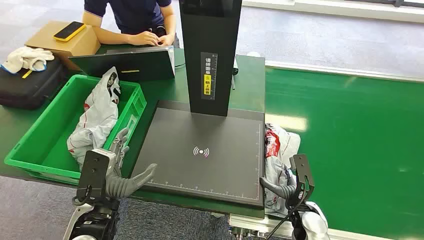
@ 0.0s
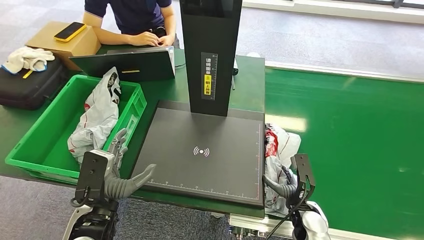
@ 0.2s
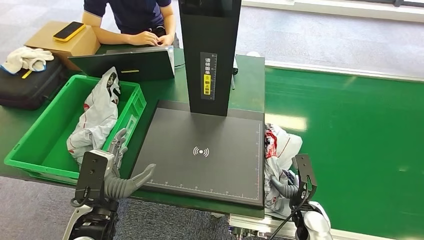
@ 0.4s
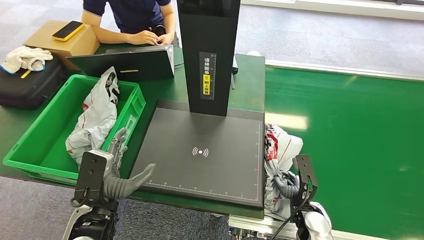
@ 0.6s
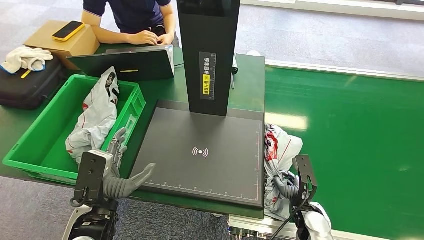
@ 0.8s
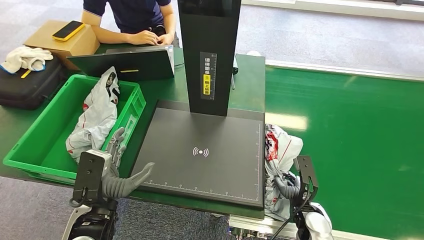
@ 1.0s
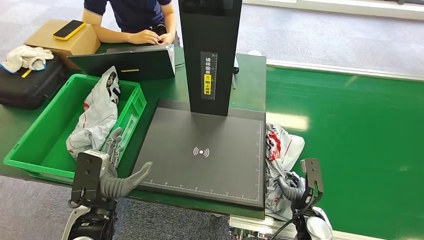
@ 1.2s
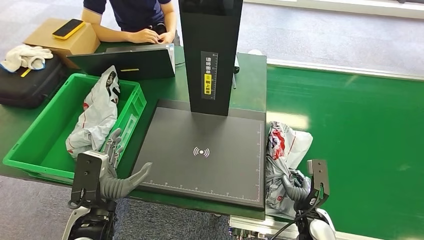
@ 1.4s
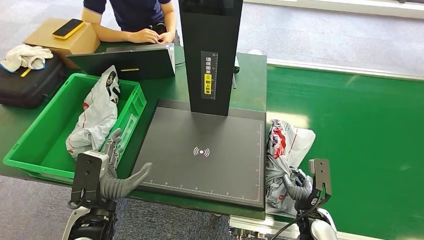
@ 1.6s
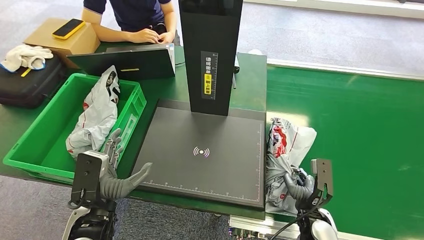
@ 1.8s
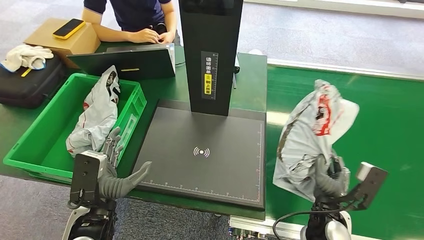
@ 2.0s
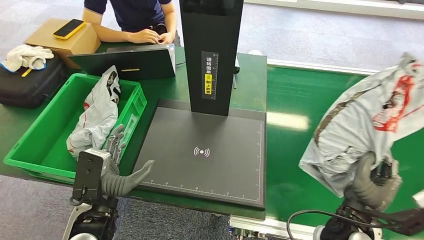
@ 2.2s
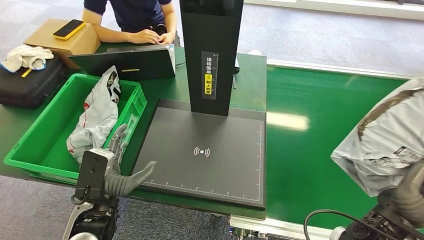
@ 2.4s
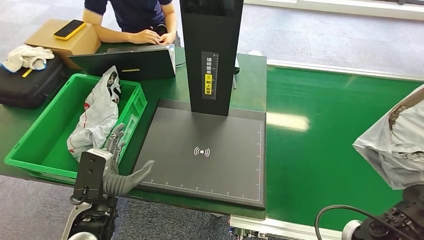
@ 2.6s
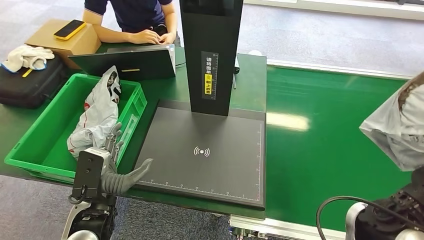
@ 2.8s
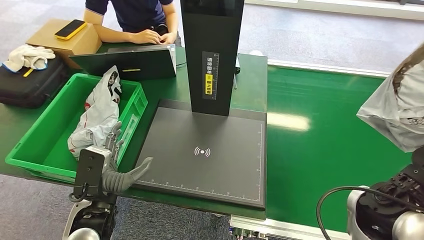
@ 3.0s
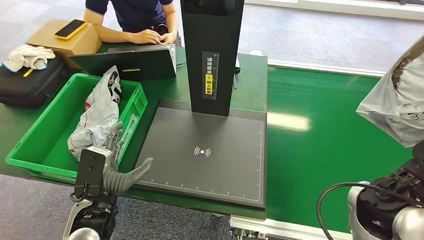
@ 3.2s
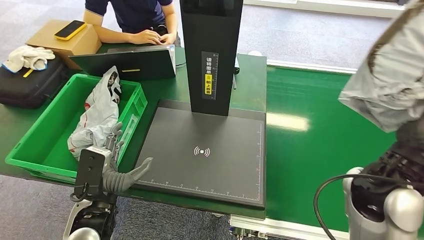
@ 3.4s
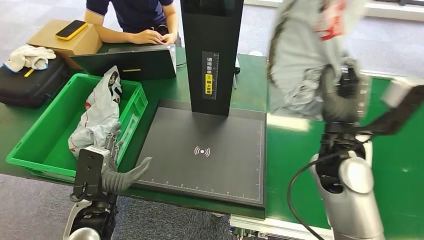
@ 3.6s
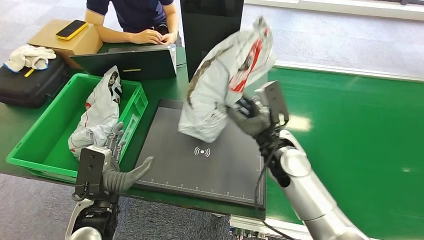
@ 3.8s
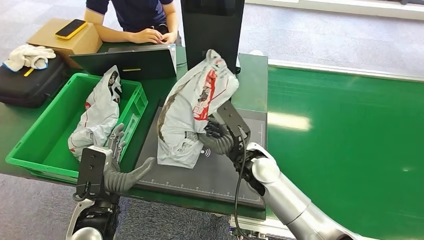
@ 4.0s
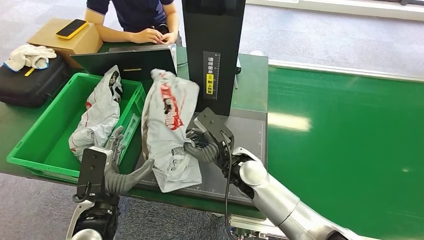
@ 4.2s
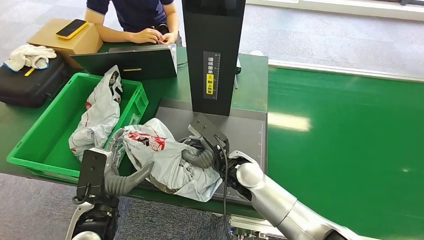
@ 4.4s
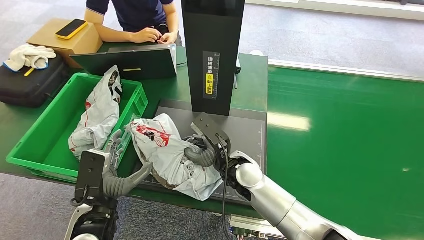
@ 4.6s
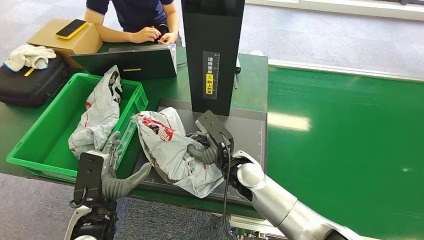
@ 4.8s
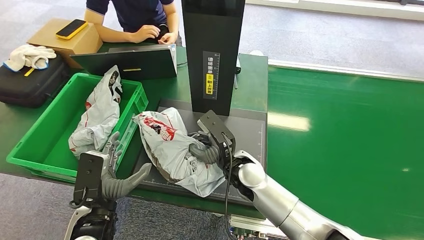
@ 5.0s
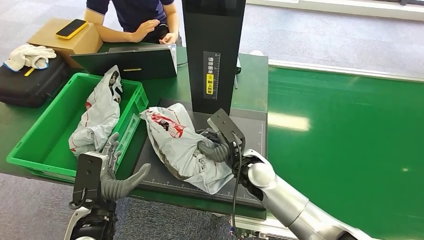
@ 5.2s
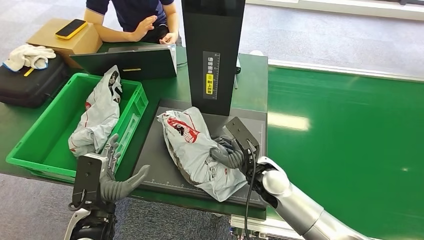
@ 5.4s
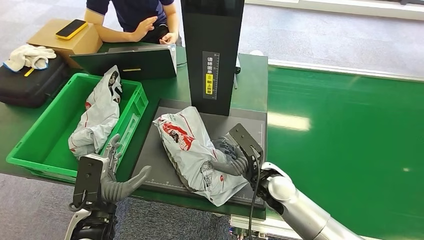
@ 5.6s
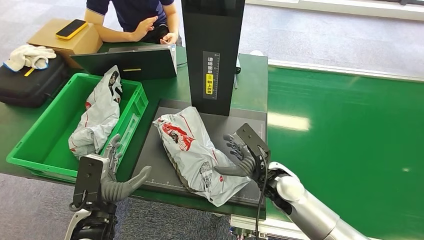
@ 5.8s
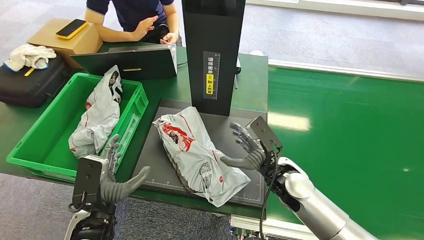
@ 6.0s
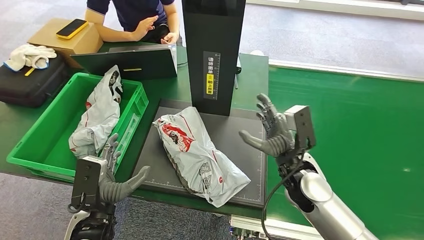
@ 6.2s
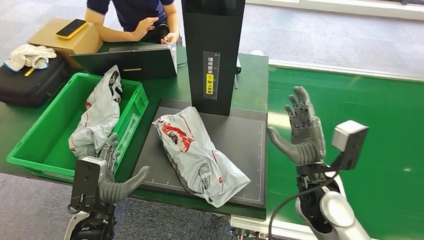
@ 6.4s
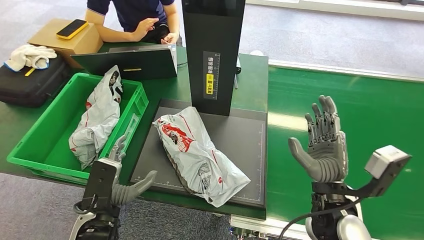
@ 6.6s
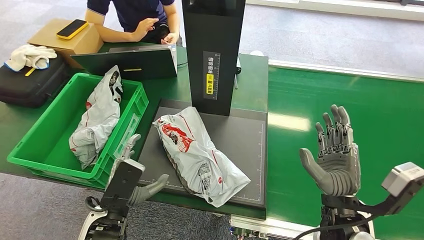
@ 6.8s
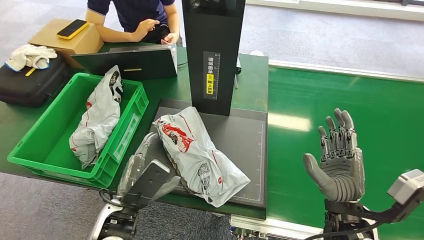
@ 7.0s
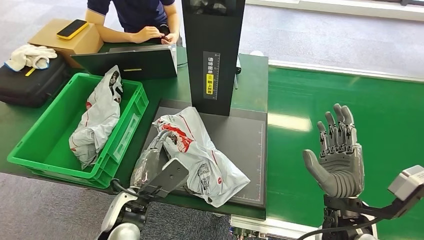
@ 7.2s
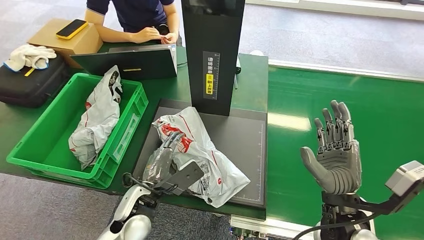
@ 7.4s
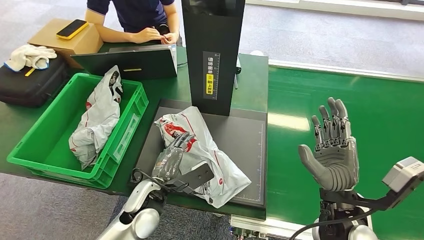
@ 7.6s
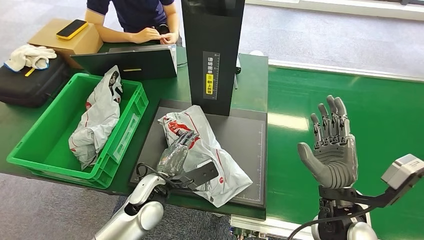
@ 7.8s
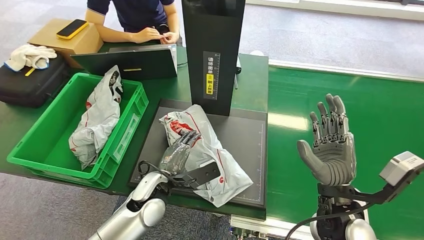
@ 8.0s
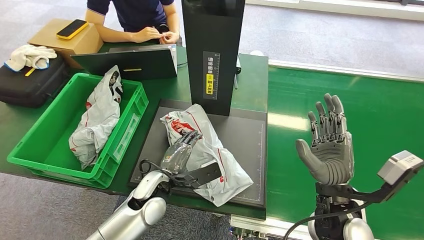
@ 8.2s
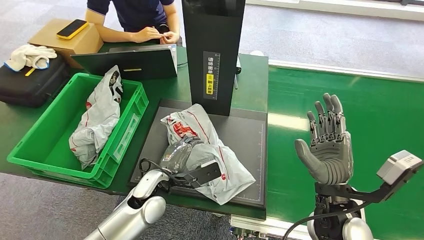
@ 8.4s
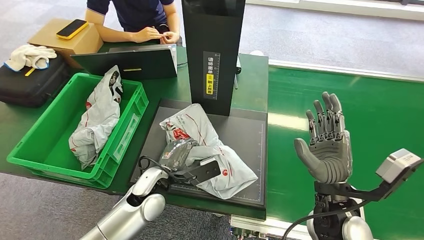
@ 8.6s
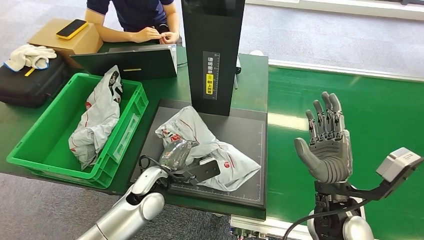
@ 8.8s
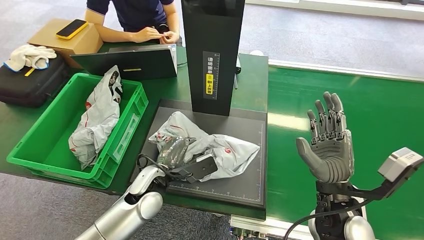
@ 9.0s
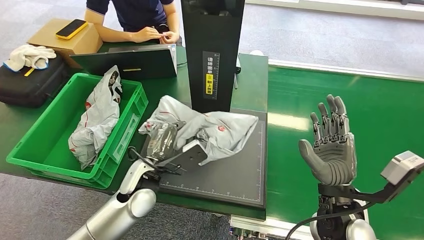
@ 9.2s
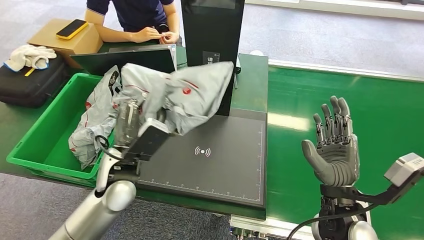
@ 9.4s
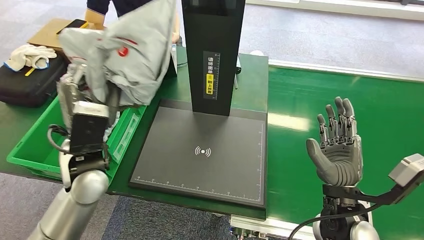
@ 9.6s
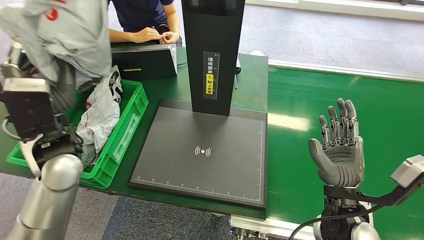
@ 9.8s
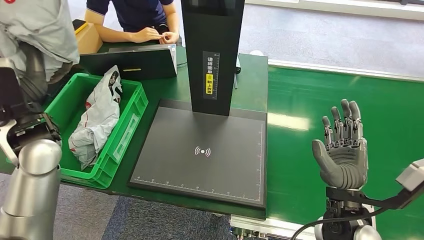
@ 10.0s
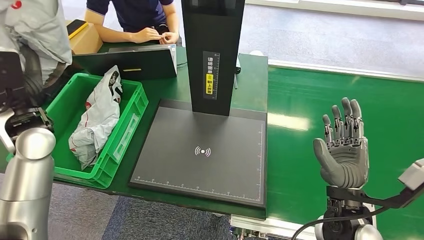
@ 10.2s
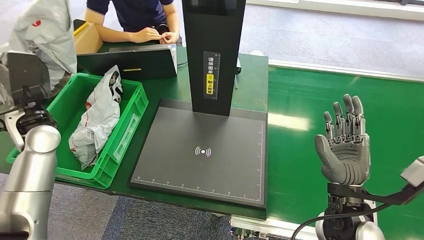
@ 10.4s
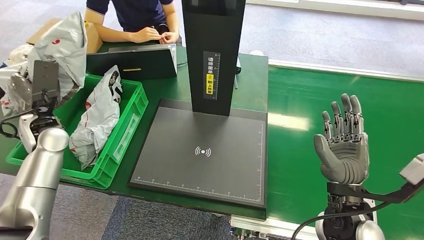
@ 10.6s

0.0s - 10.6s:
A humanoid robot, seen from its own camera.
Step, 0.0s - 3.0s: Pick up the package from the conveyor belt.
Step, 3.2s - 6.0s: Place the package onto the inbound machine.
Step, 6.4s - 10.4s: Pick up the package from the inbound machine.
4.6s - 6.0s: The right hand travels to the right by some 10 cm.
6.0s - 7.6s: The right hand goes about 10 cm backward. The left hand shifts about 10 cm forward and to the right.
7.6s - 9.0s: The hands stay close to where they were, moving slightly.

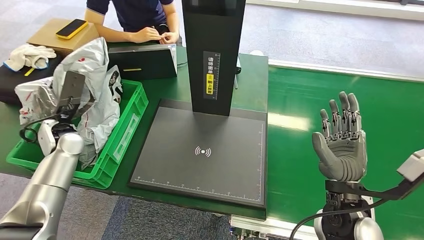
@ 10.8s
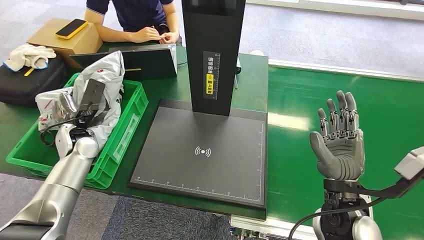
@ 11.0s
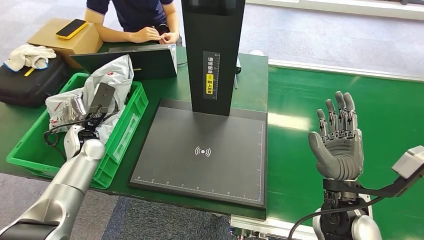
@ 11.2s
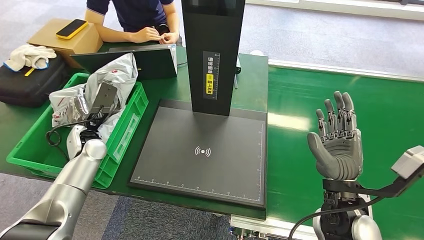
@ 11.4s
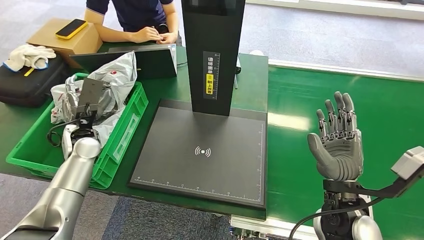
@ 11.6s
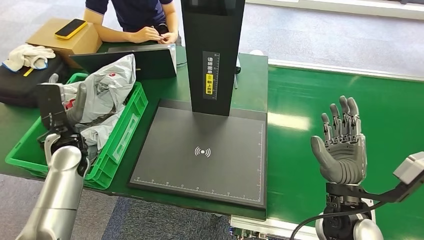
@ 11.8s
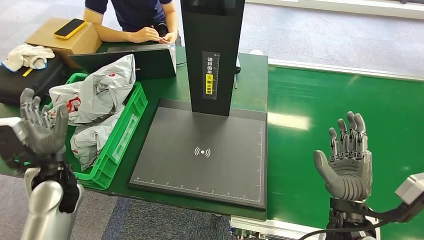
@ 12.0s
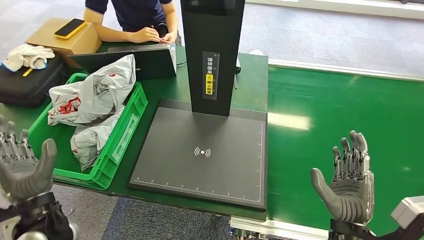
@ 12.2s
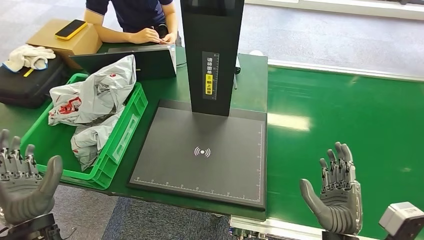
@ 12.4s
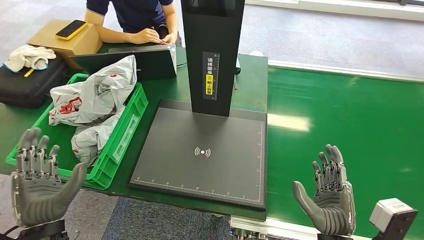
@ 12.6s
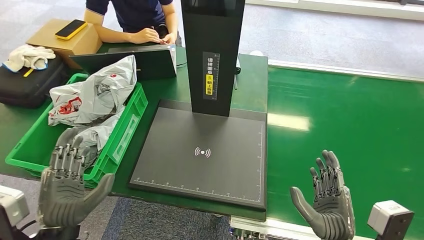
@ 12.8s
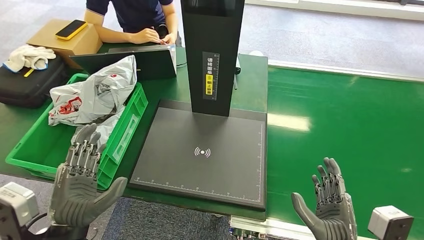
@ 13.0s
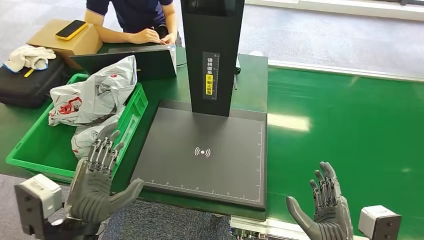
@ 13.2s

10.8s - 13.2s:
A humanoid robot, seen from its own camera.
Step, 10.8s - 13.0s: Place the package into the parcel locker.
